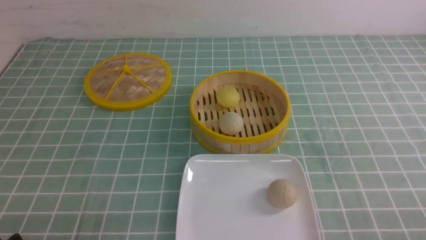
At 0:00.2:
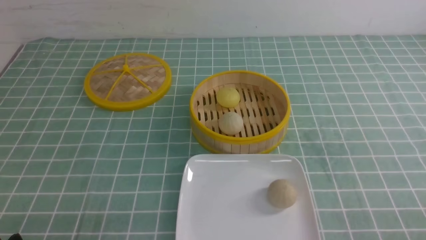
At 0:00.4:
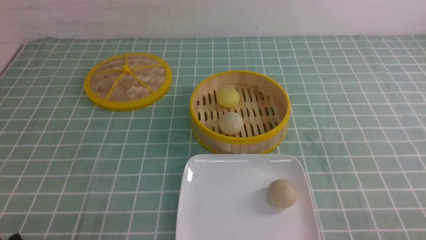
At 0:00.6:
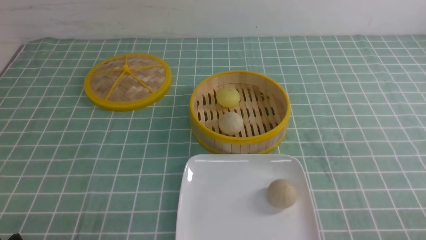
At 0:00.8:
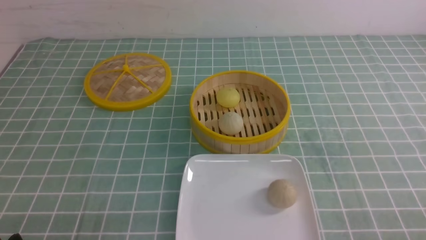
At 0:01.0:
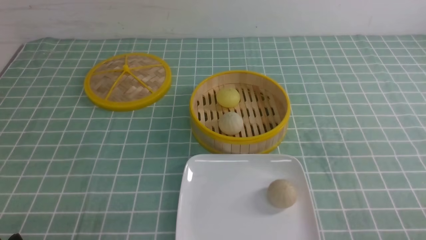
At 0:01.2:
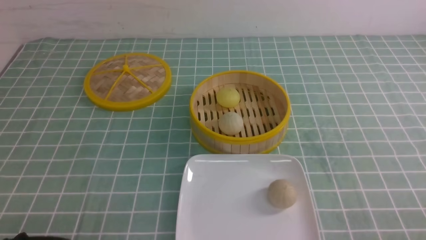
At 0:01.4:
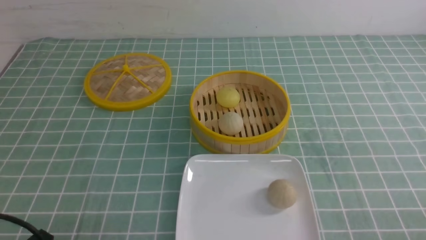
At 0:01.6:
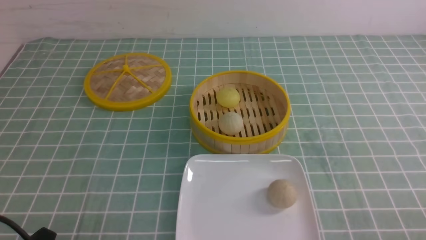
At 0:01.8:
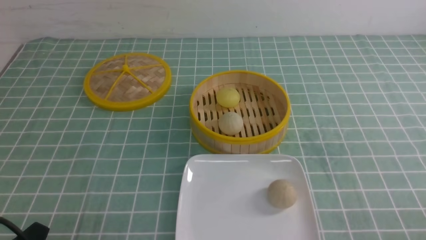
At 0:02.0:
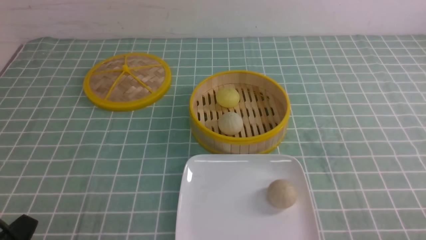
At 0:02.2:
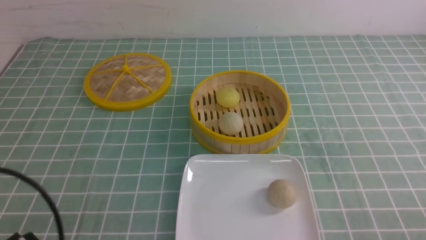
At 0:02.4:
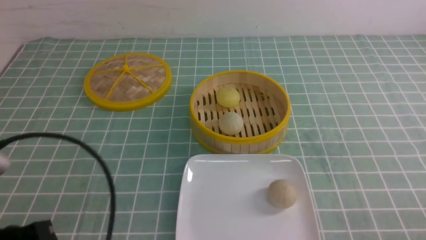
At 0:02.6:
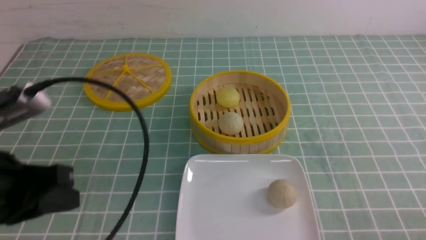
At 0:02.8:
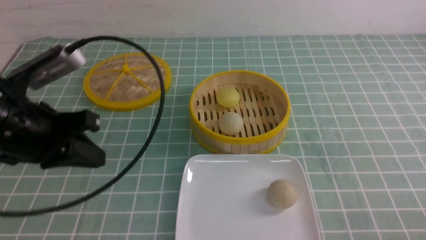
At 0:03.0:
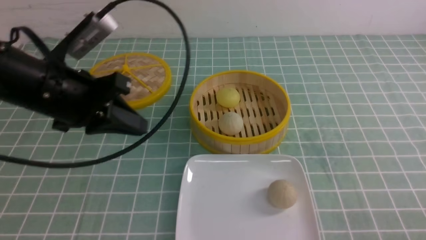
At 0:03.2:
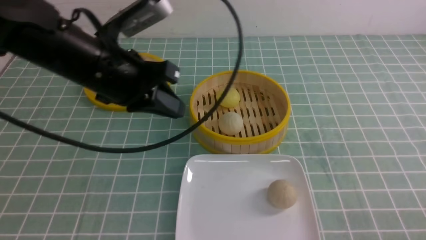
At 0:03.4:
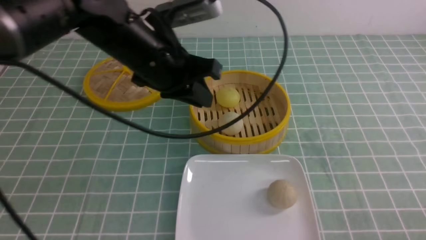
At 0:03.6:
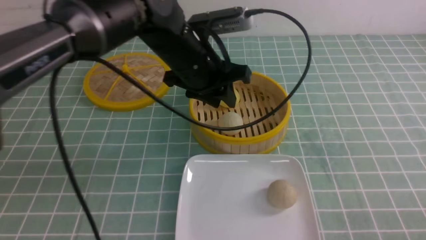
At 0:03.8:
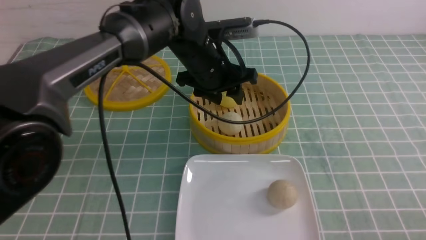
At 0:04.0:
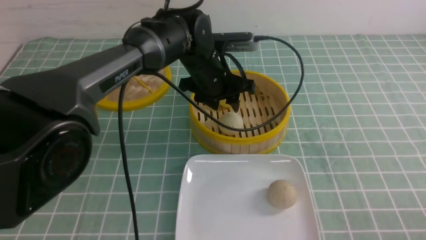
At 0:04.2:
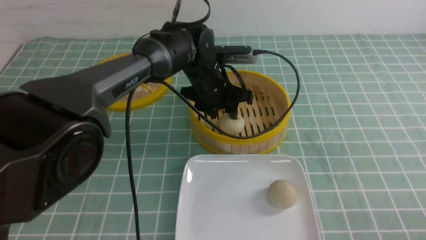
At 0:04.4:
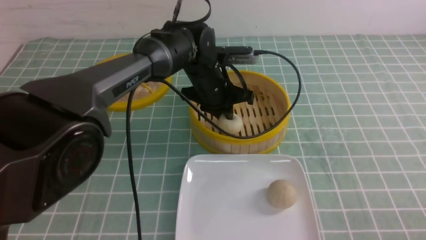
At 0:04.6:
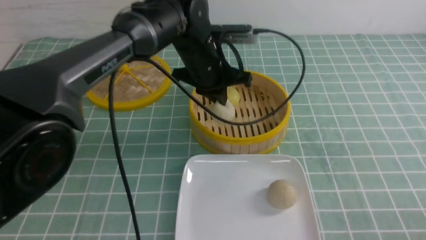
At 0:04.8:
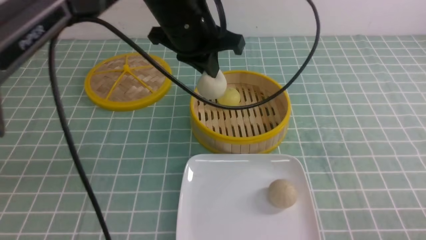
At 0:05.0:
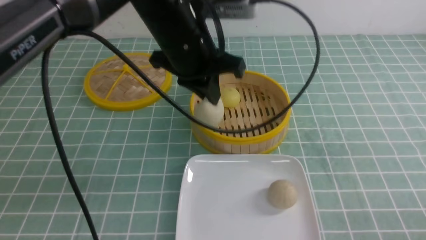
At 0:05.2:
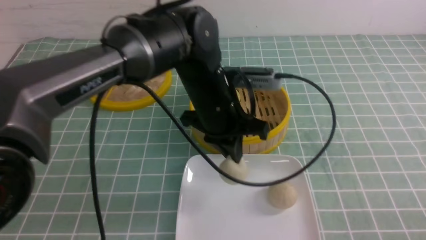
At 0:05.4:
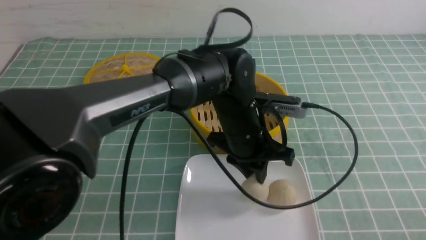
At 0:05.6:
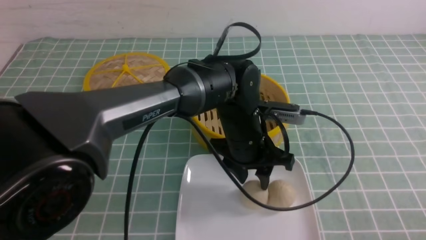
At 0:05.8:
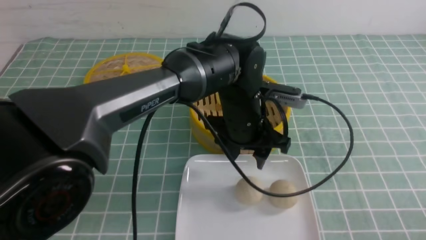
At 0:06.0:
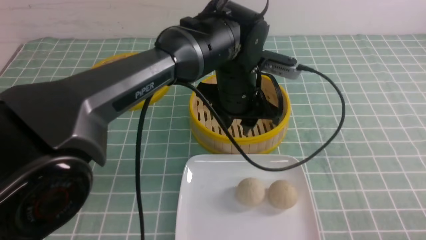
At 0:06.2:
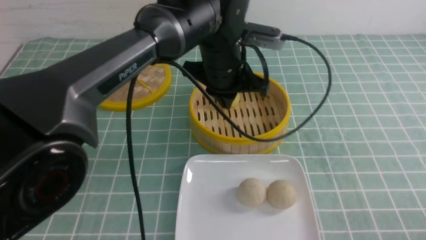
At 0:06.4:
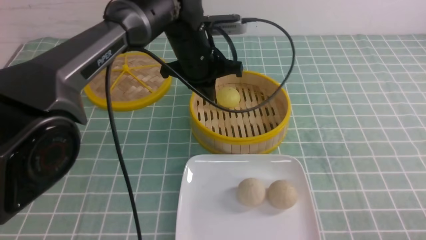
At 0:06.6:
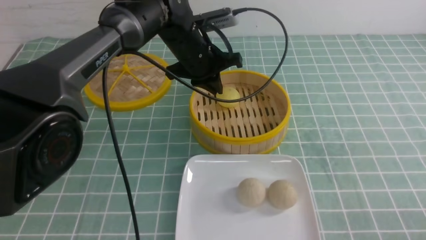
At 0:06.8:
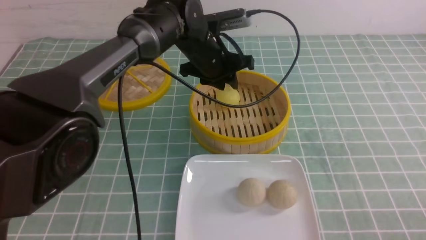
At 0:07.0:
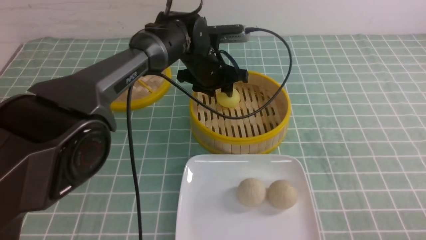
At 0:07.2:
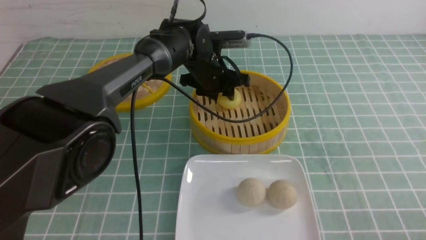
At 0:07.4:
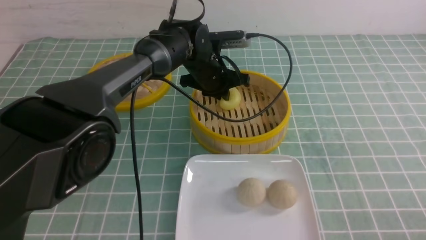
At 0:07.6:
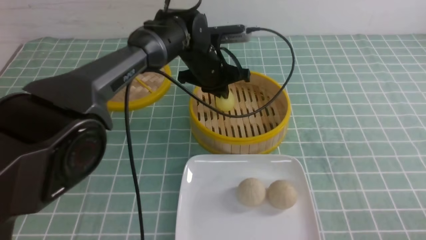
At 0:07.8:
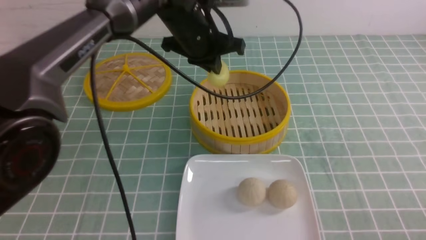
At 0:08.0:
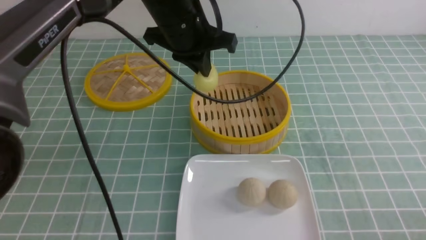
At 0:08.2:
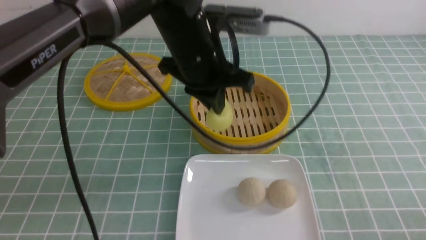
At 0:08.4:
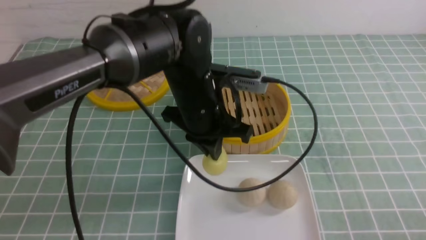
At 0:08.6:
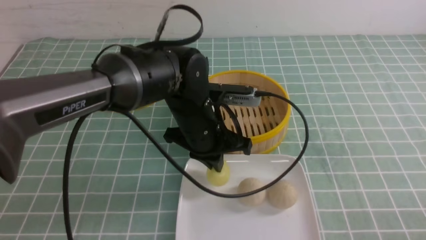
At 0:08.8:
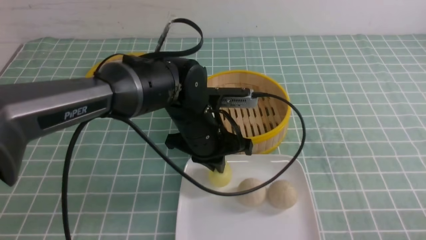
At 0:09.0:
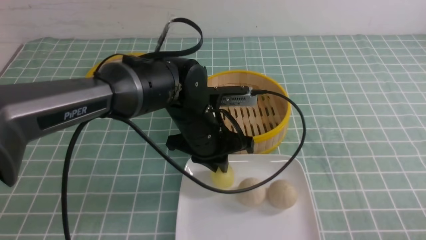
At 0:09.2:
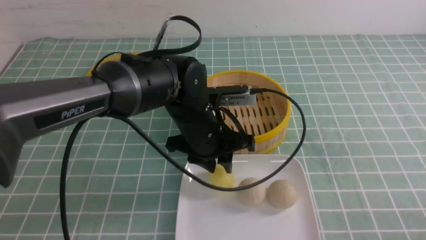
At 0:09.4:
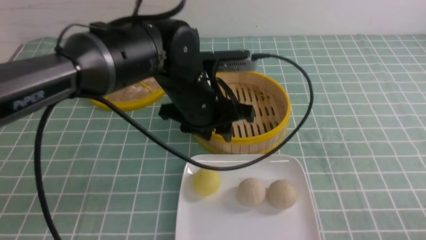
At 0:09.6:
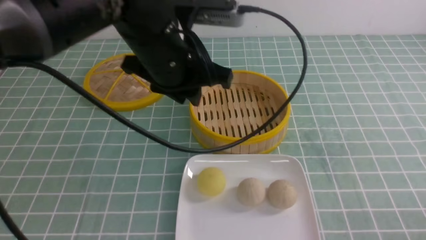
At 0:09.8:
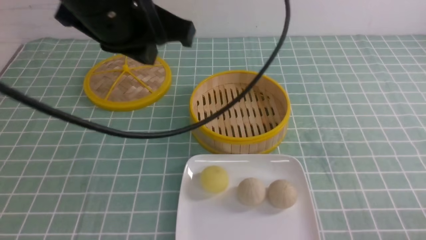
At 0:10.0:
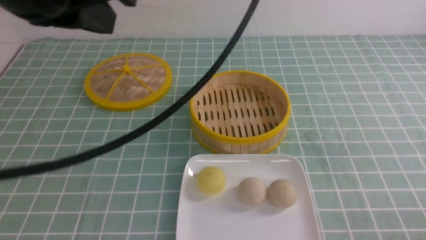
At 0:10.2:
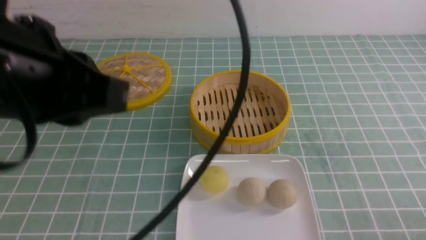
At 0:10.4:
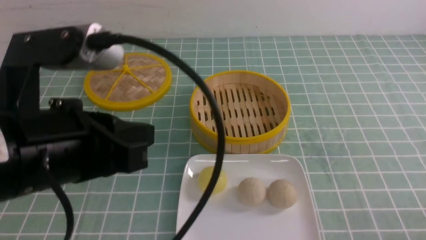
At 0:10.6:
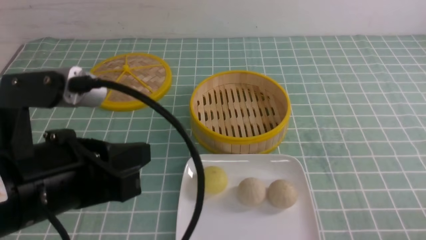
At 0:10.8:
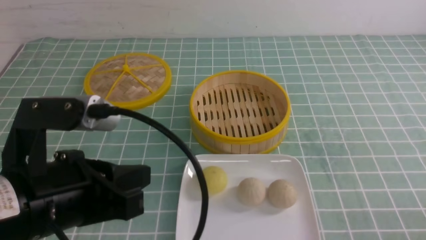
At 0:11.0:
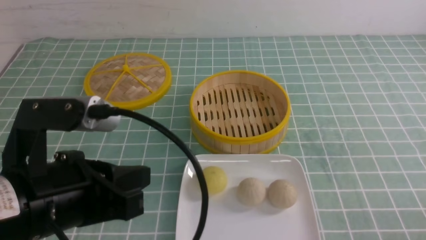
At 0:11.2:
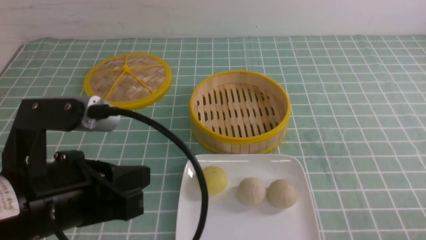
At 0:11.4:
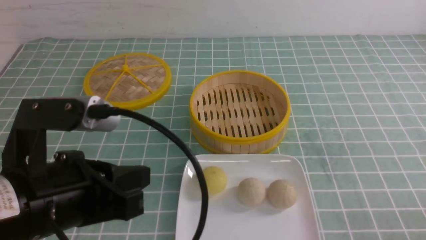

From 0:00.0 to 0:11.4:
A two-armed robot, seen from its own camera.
Step, from 0:00.0 to 0:04.4: use the left arm to grab the steamed stuffed bun that is closest to it.
Step, from 0:04.6 to 0:05.6: use the left arm to put the steamed stuffed bun into the plate.
Step, from 0:05.8 to 0:07.4: use the left arm to grab the steamed stuffed bun that is closest to it.
Step, from 0:07.6 to 0:08.8: use the left arm to put the steamed stuffed bun into the plate.
From 0:01.4 to 0:02.8: The left gripper heads forward and upward, covering about 20 cm, and closes up.
From 0:02.8 to 0:04.2: The left gripper goes about 30 cm forward, to the right and downward, and opens.
From 0:04.2 to 0:05.6: The left gripper goes some 10 cm backward and to the right, moves roughly 10 cm upward and comes back, and closes, then reopens.
From 0:05.6 to 0:07.2: The left gripper travels forward by roughly 15 cm, and closes, then opens again.
From 0:07.2 to 0:08.6: The left gripper travels backward by roughly 15 cm, and closes.
From 0:08.6 to 0:10.0: The left gripper shifts about 30 cm upward, backward and to the left, and opens, then closes again.
From 0:10.0 to 0:11.4: The left gripper is displaced downward and backward by some 15 cm.

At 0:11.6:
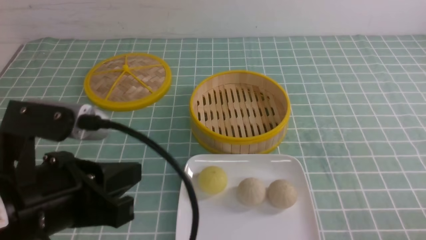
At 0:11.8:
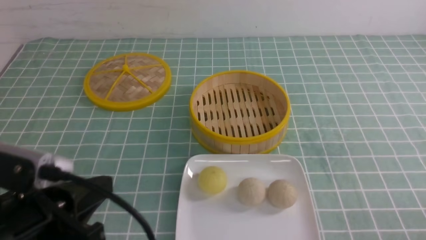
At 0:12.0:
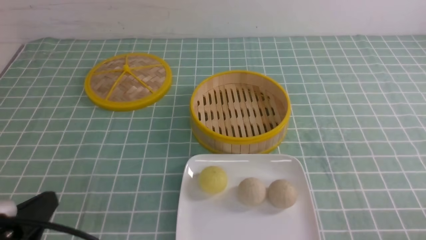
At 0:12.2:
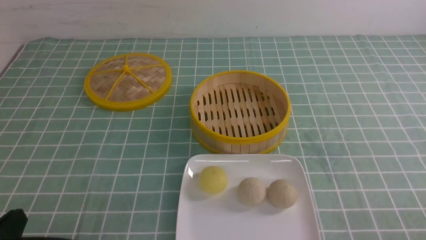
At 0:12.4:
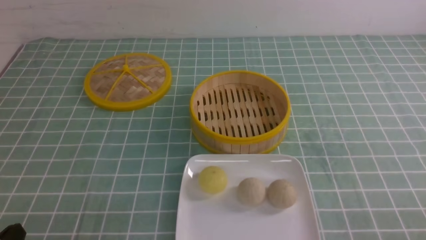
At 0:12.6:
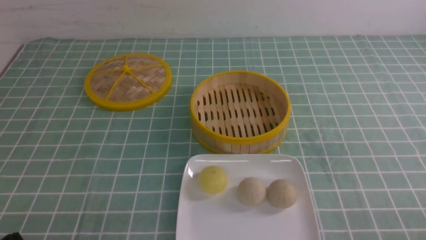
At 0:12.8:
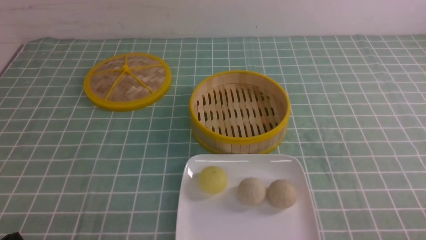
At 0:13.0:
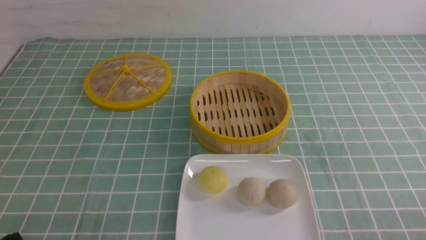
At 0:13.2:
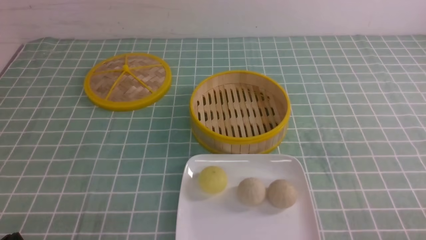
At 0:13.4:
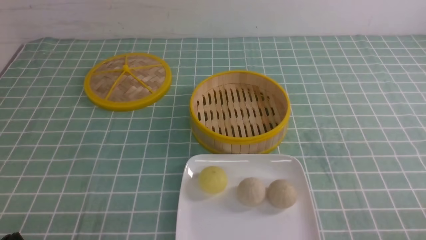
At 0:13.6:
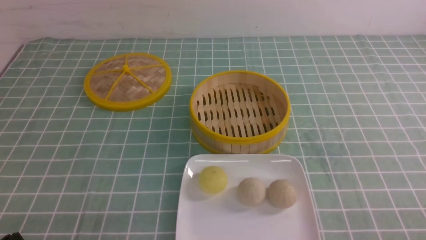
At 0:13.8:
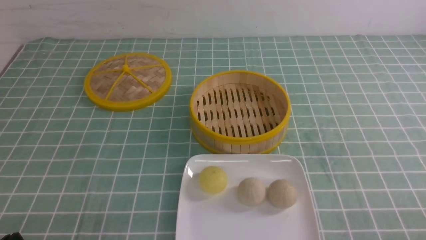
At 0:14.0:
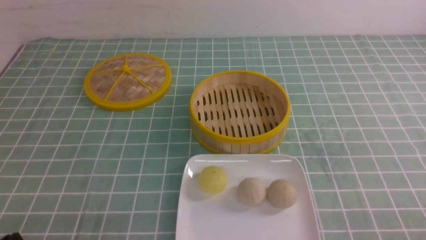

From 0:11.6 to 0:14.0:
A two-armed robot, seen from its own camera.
From 0:11.6 to 0:12.8: The left gripper travels downward, to the left and backward by some 15 cm.
From 0:12.8 to 0:14.0: Both grippers stay about where they are.
